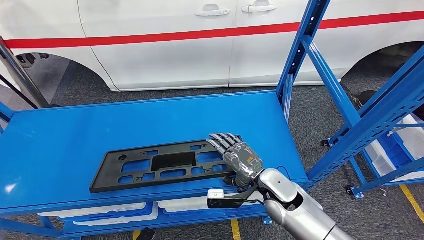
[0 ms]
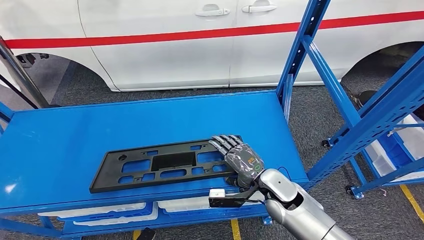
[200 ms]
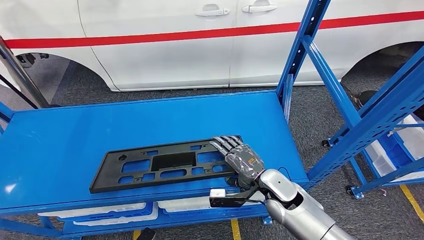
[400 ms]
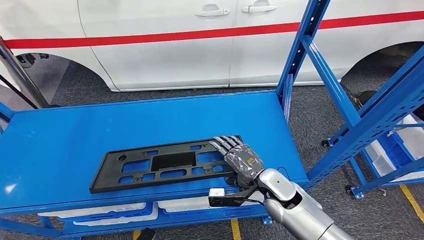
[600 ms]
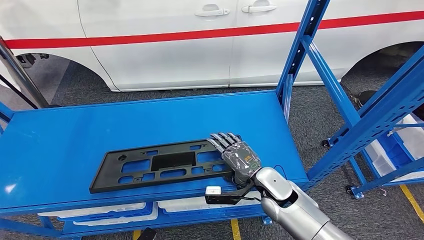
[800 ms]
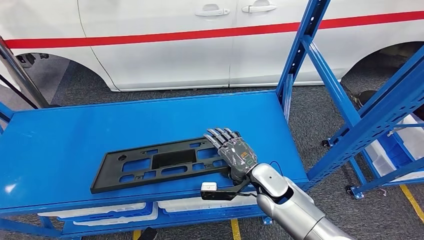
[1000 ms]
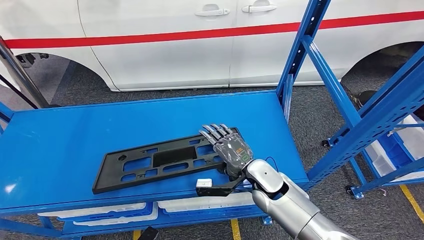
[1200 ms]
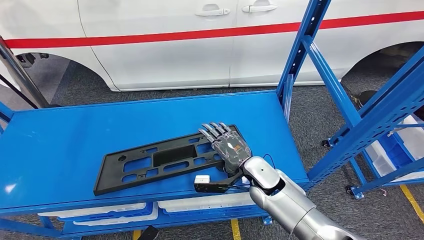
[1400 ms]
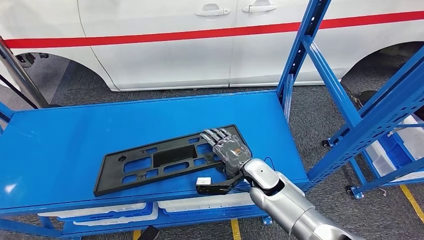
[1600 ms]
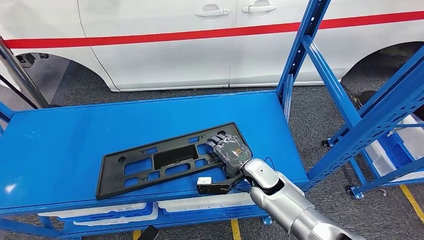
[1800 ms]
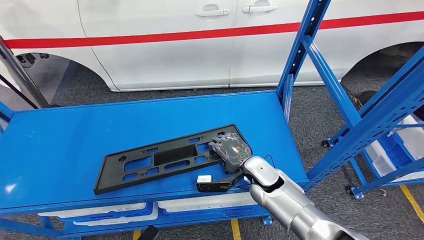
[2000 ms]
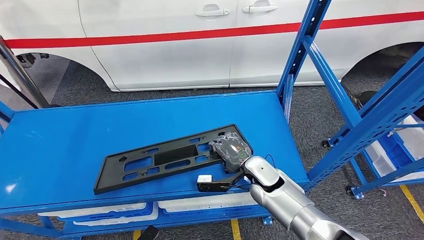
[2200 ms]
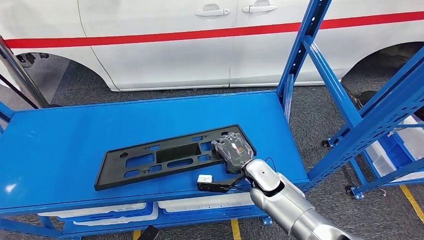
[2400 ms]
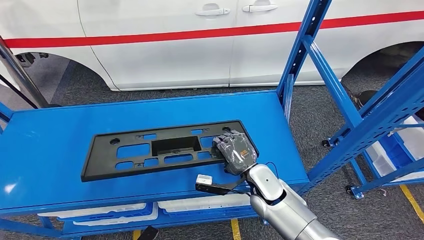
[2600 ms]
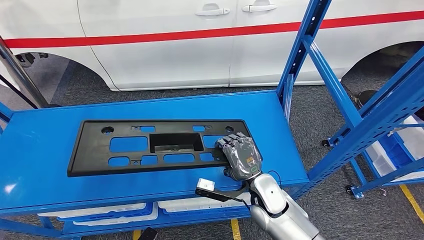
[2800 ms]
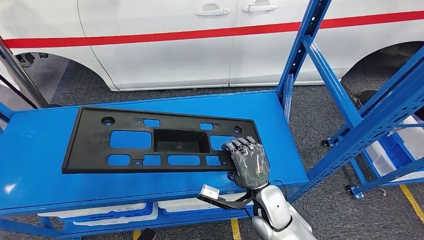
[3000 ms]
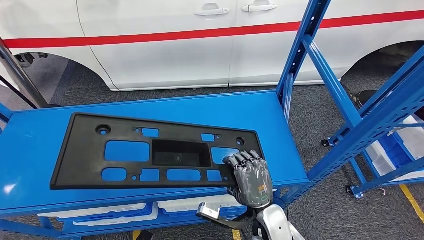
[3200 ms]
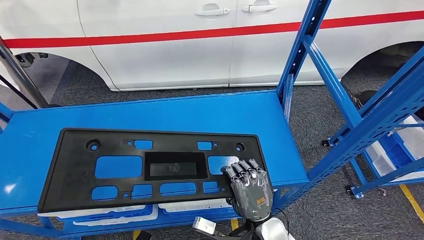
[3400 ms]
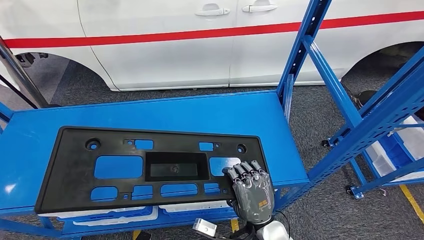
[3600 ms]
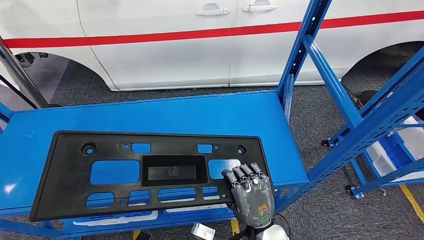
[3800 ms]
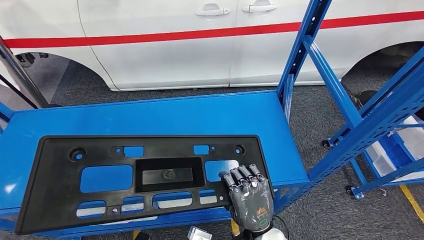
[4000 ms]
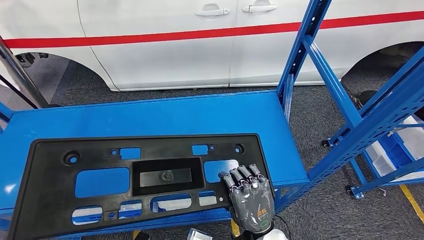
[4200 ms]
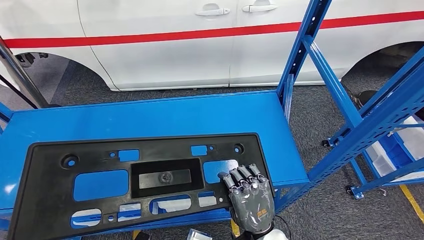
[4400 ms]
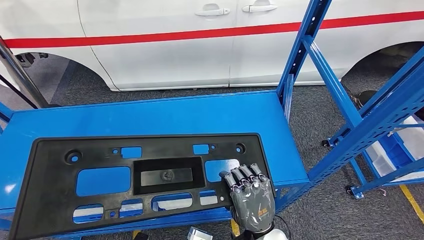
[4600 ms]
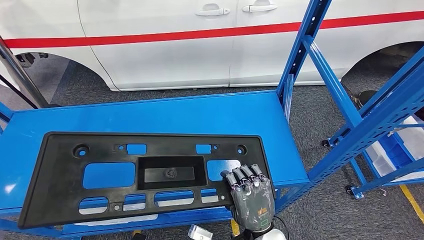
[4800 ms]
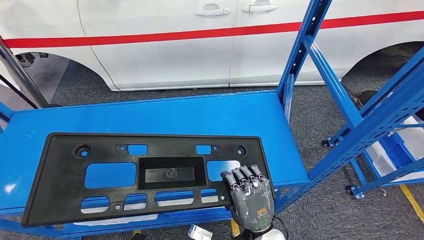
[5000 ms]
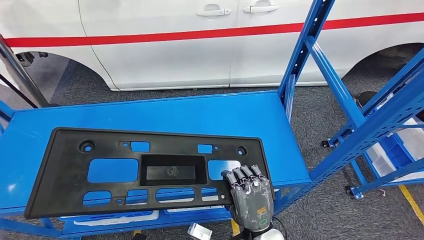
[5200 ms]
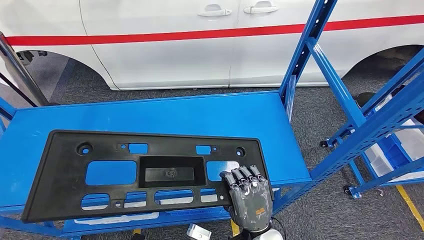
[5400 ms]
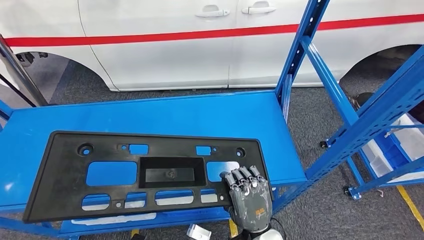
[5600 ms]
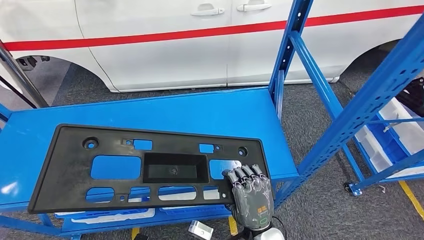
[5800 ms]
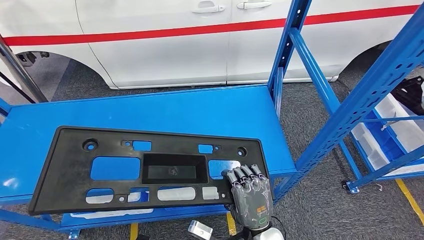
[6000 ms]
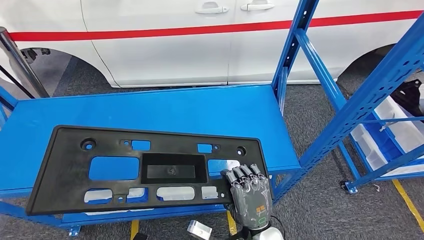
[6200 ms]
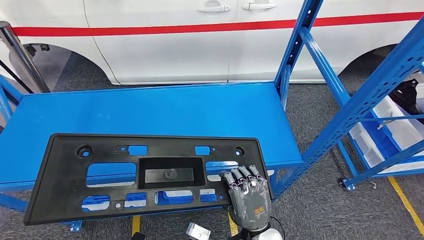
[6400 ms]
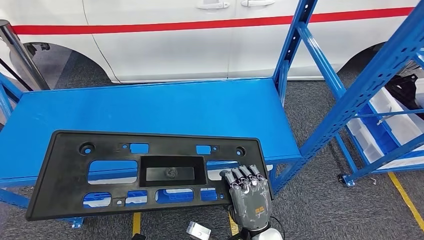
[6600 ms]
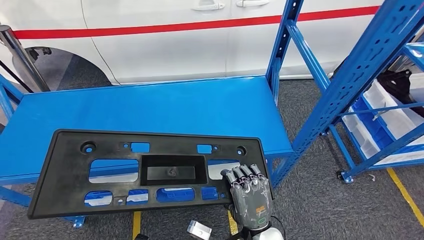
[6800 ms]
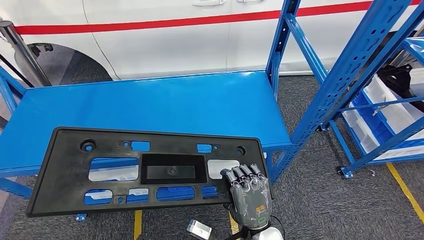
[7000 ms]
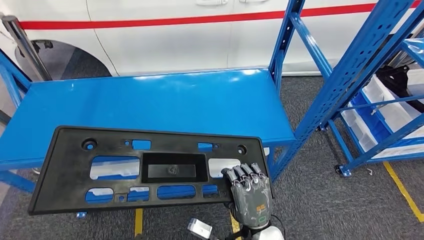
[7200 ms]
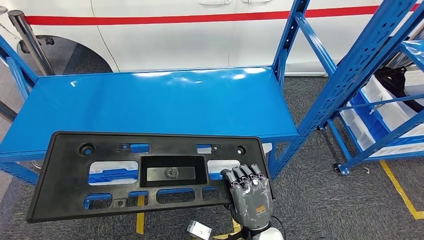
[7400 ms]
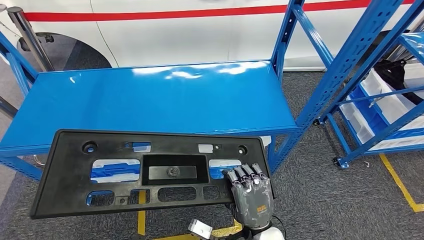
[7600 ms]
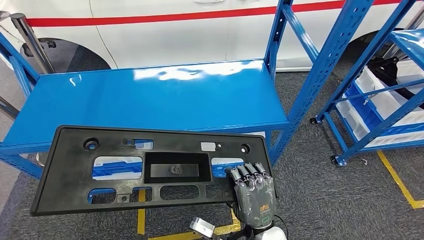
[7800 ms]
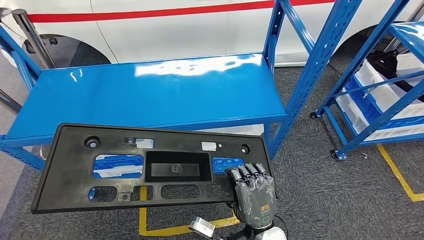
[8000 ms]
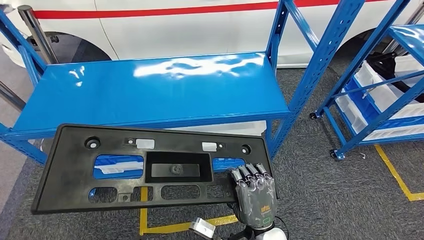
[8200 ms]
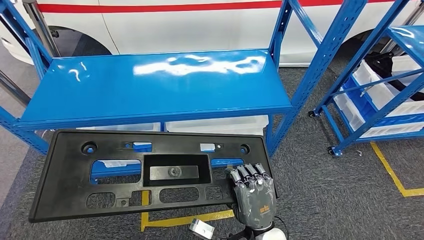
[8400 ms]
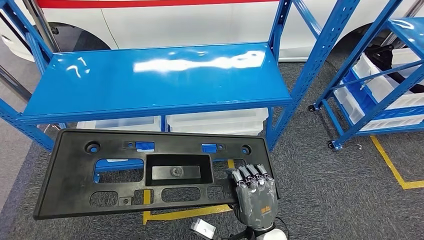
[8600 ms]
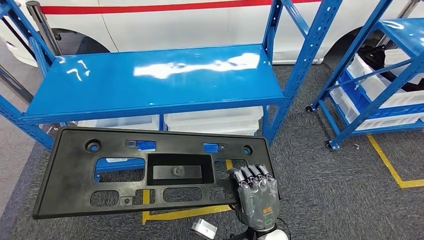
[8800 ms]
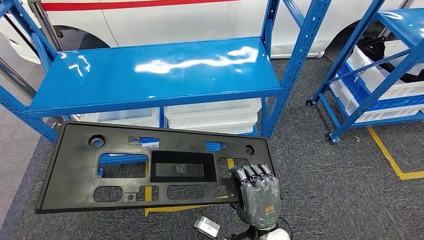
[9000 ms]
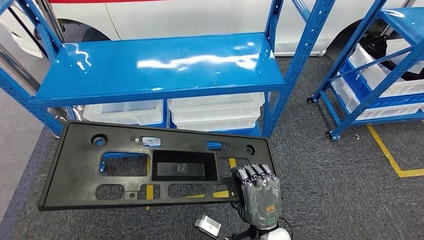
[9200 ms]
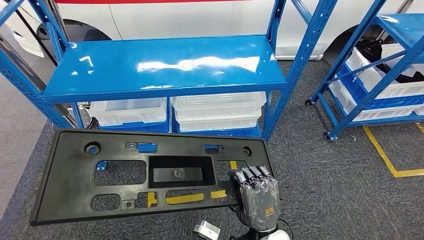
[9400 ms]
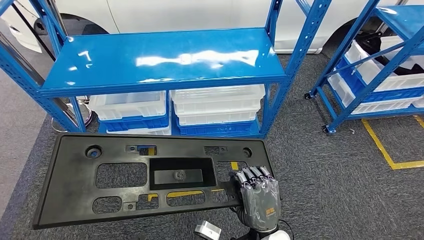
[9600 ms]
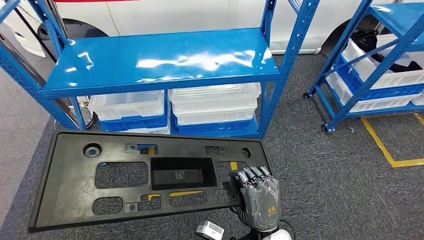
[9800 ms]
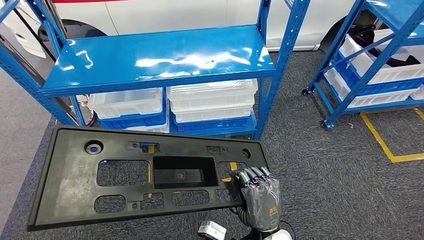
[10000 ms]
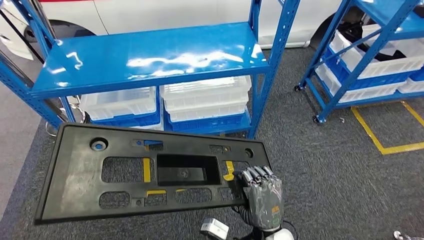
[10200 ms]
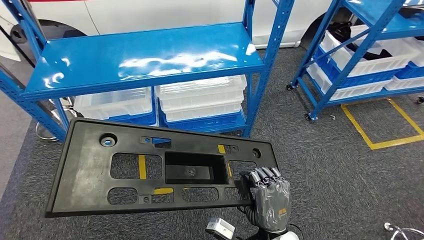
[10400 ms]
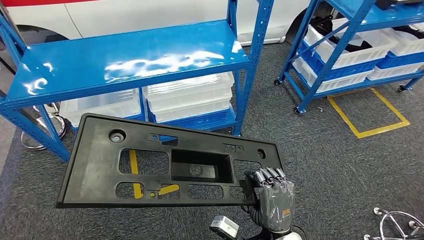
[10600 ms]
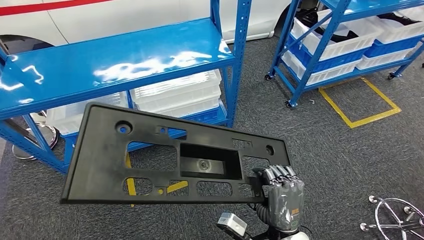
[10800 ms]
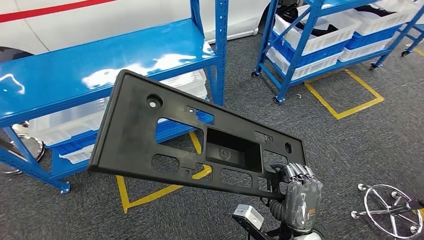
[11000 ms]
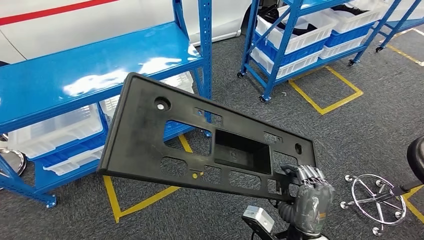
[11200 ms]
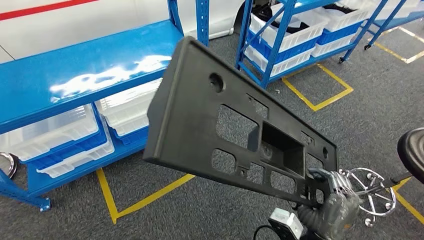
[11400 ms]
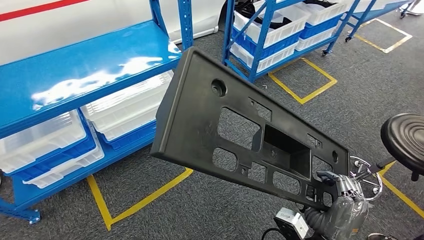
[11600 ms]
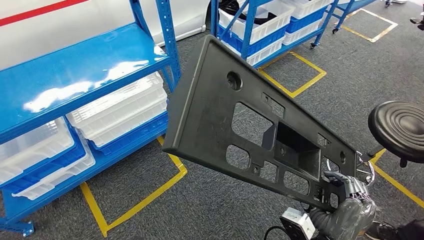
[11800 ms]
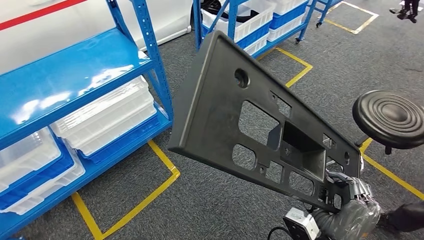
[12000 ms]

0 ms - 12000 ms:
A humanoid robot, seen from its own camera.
Step, 0 ms - 4400 ms: Pick up the large material from the shelf.
0 ms - 1600 ms: The right hand ends up roughly 5 cm from where it was.
1600 ms - 3000 ms: The right hand heads backward, covering approximately 10 cm.
3000 ms - 4400 ms: The right hand goes roughly 10 cm backward.

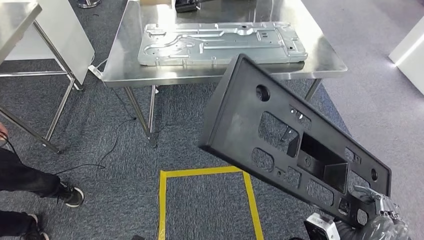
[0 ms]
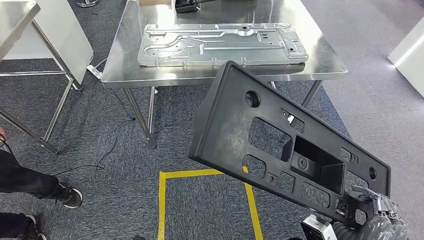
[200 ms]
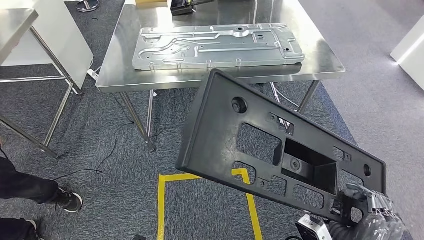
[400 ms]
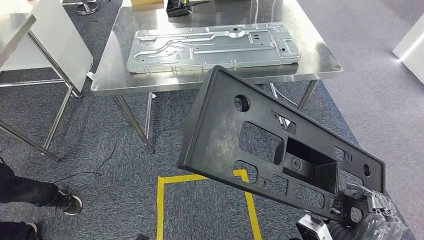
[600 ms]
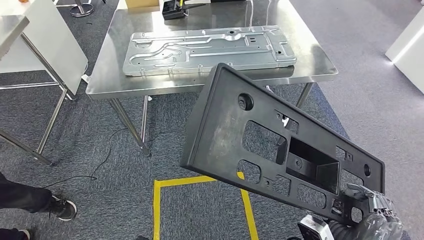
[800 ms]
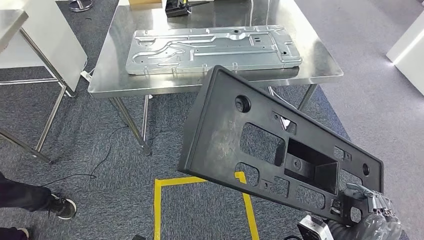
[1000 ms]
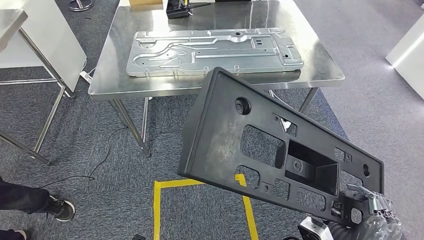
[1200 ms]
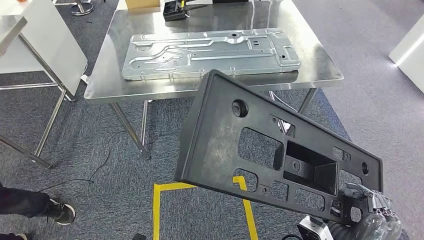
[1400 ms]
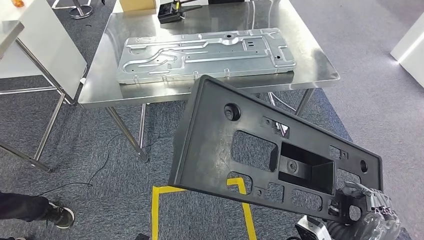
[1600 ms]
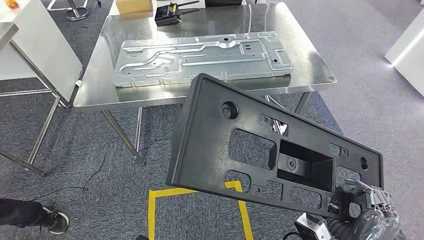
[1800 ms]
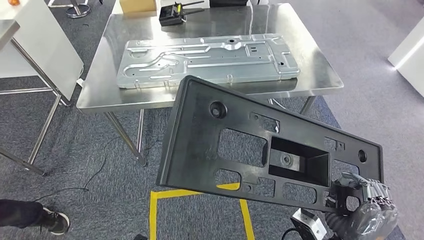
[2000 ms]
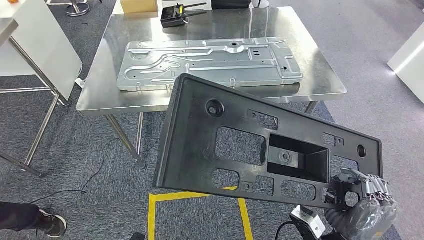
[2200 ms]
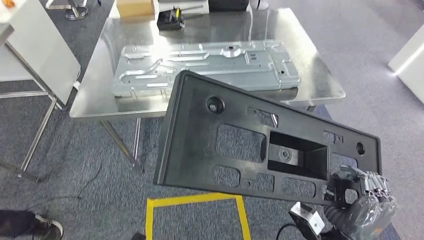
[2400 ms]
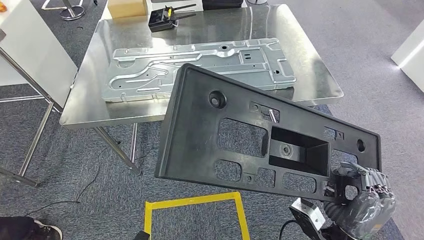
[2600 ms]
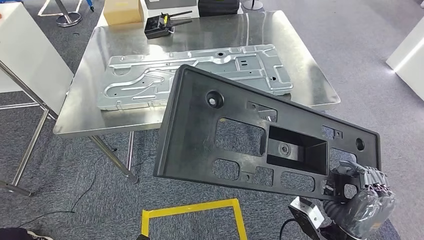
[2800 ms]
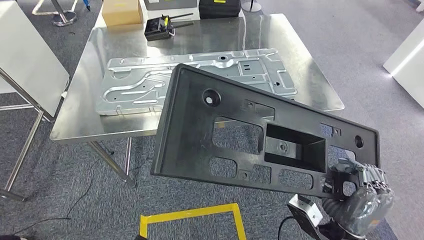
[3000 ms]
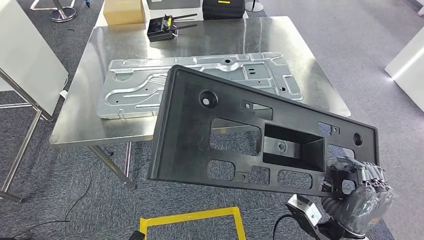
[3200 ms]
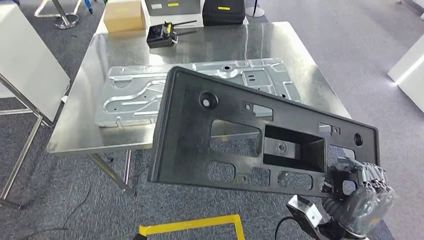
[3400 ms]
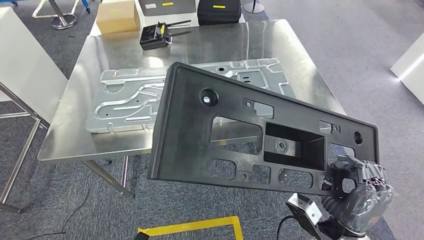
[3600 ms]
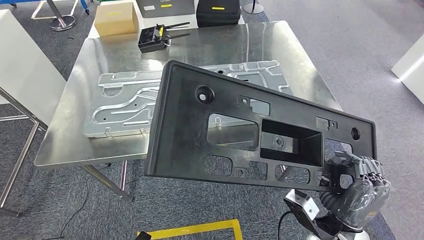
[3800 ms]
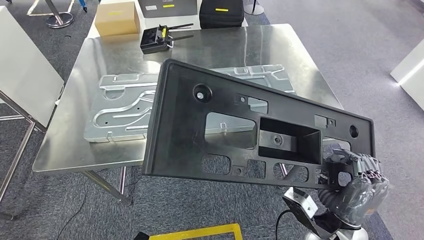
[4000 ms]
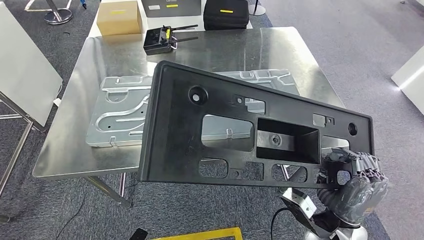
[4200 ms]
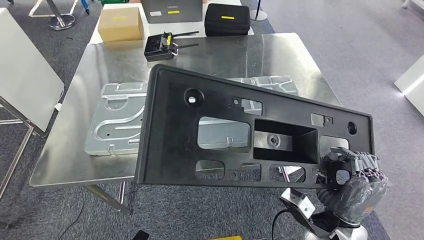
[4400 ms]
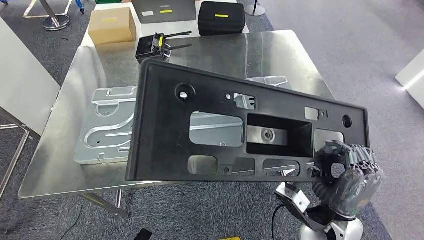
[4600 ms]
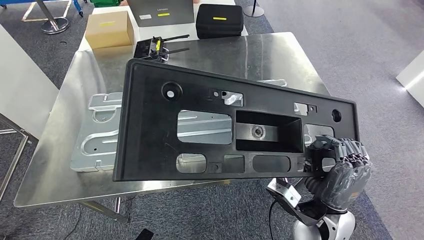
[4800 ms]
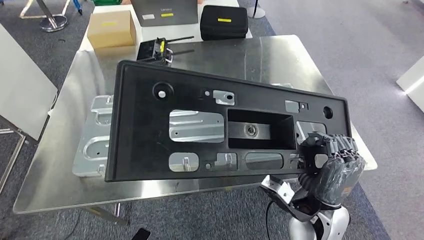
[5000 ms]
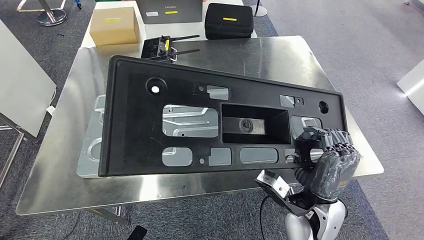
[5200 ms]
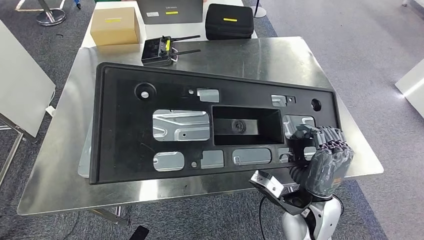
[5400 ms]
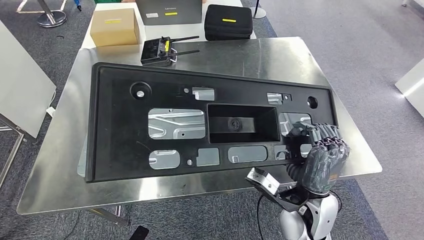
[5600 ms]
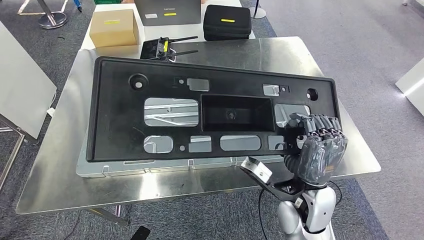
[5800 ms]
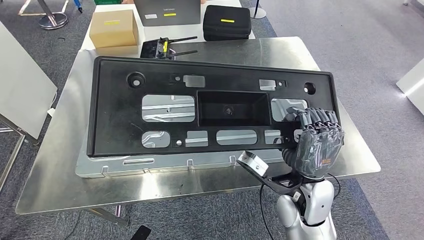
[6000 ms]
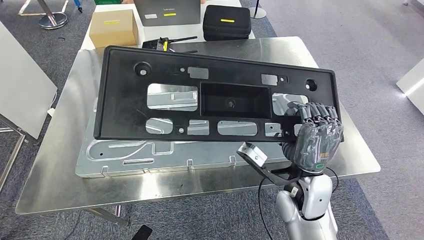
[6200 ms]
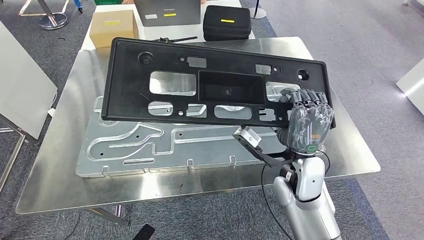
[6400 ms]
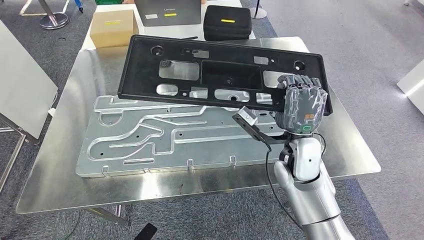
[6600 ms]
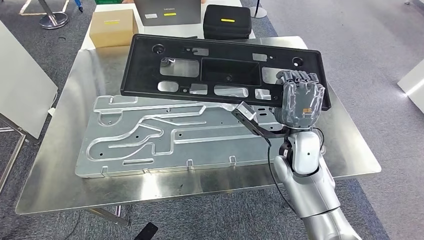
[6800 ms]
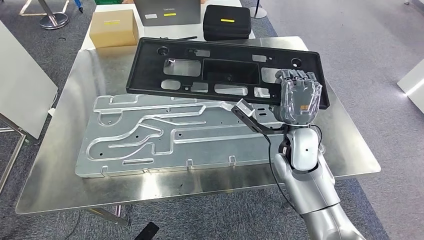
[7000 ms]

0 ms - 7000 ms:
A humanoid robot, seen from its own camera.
Step, 0 ms - 4400 ms: Move the large material to the workbench.
